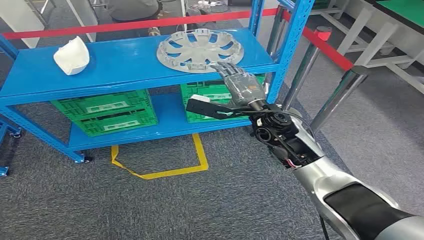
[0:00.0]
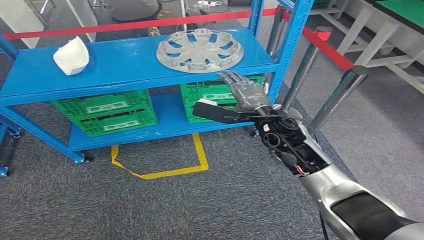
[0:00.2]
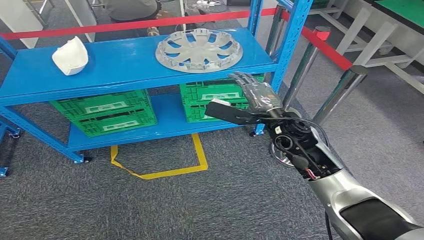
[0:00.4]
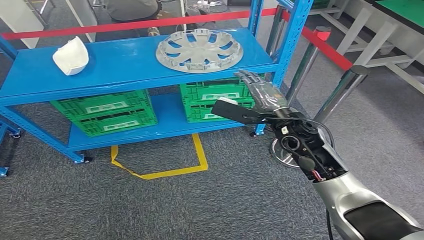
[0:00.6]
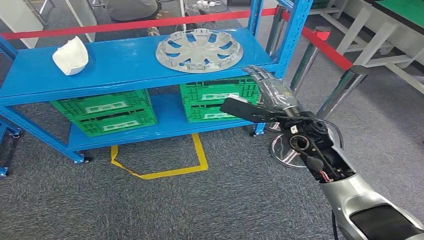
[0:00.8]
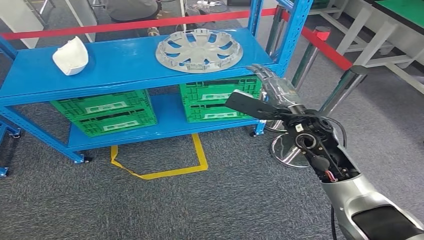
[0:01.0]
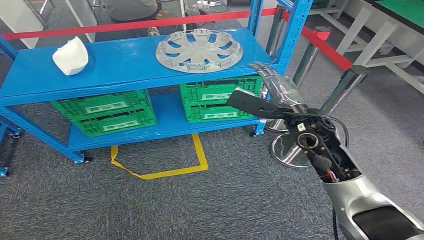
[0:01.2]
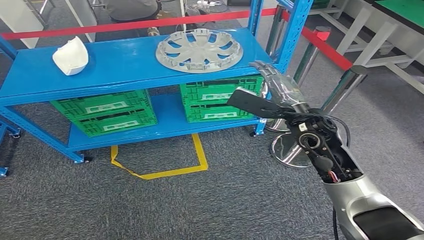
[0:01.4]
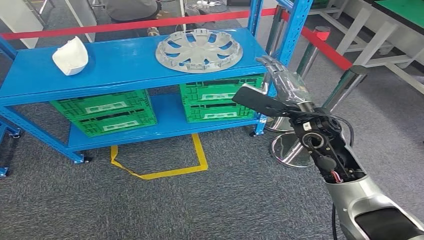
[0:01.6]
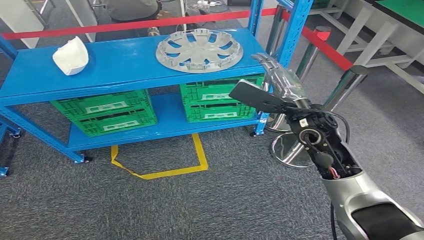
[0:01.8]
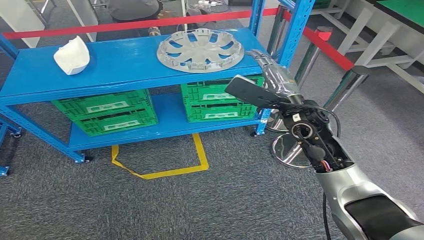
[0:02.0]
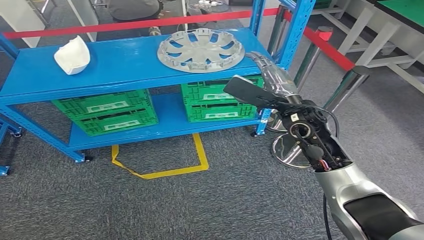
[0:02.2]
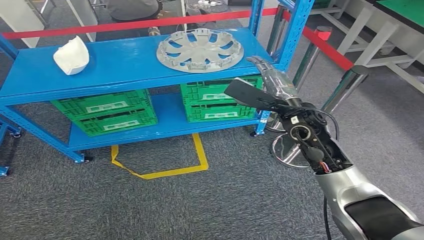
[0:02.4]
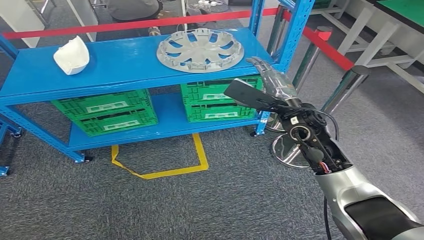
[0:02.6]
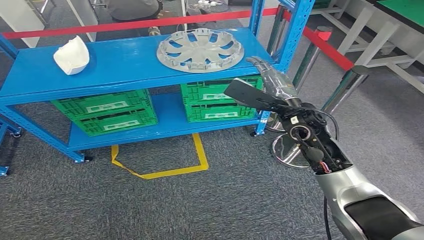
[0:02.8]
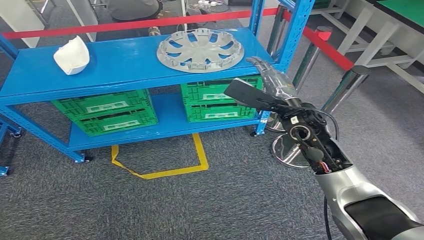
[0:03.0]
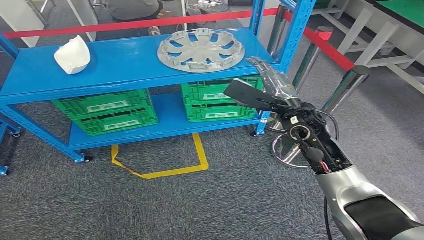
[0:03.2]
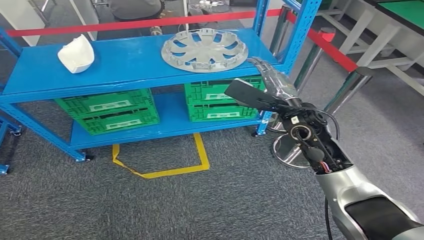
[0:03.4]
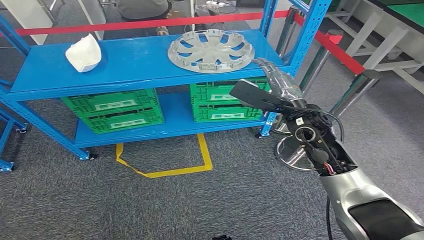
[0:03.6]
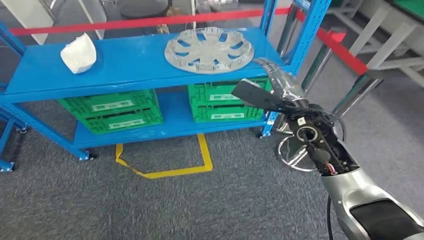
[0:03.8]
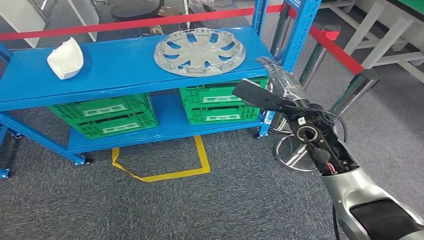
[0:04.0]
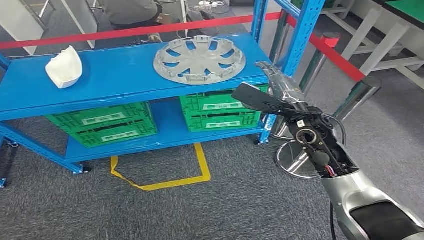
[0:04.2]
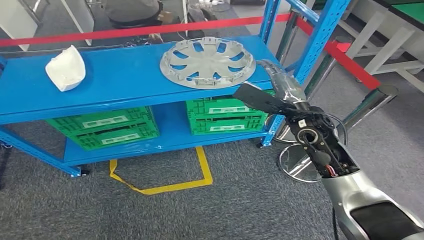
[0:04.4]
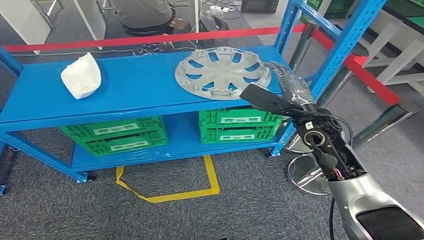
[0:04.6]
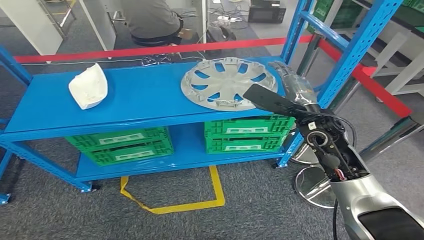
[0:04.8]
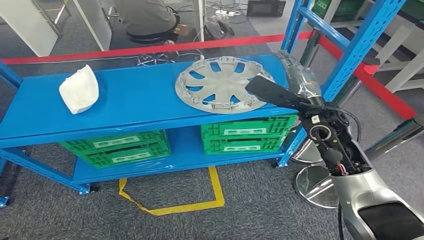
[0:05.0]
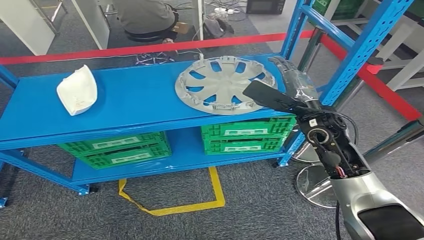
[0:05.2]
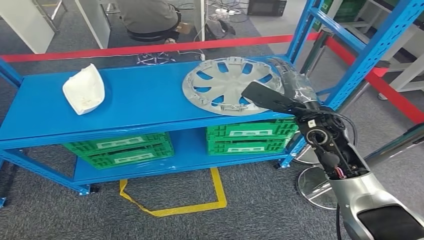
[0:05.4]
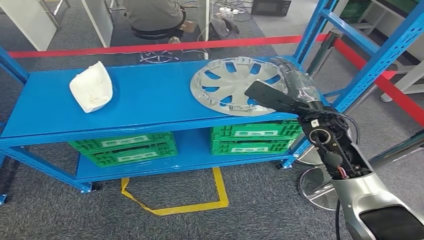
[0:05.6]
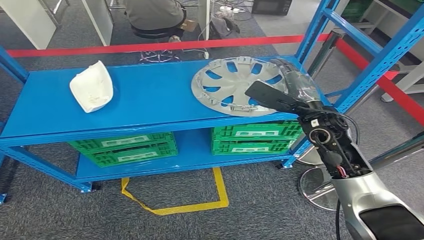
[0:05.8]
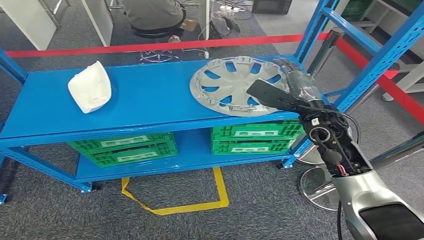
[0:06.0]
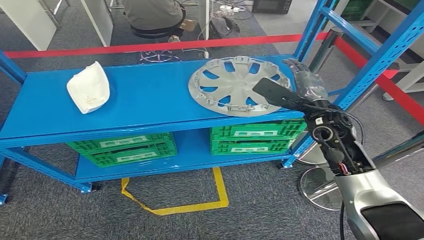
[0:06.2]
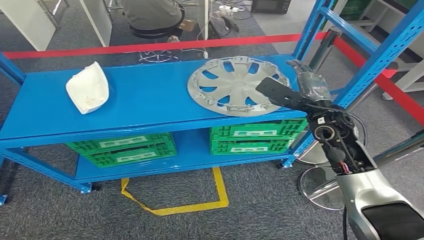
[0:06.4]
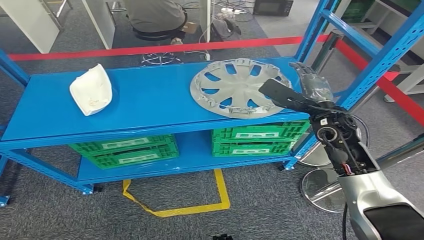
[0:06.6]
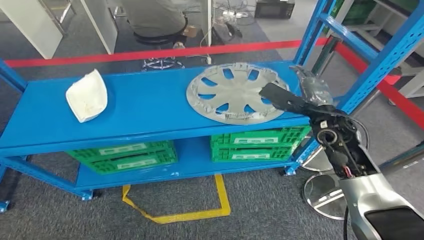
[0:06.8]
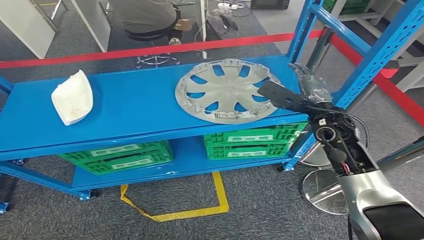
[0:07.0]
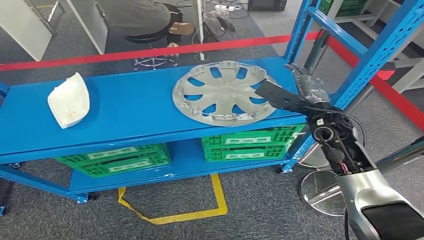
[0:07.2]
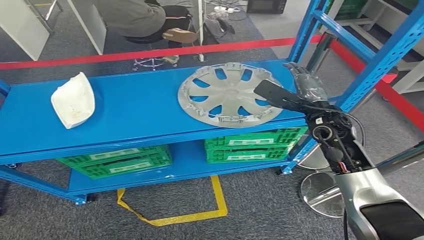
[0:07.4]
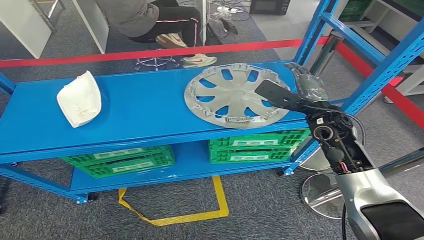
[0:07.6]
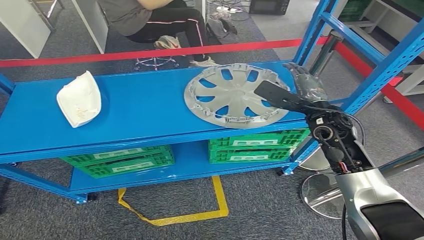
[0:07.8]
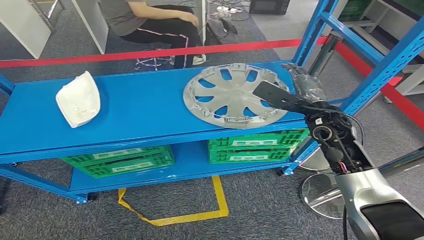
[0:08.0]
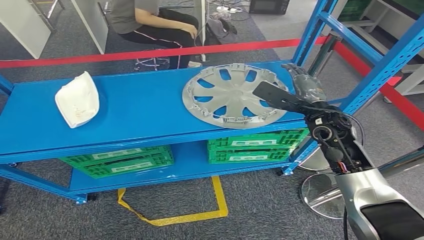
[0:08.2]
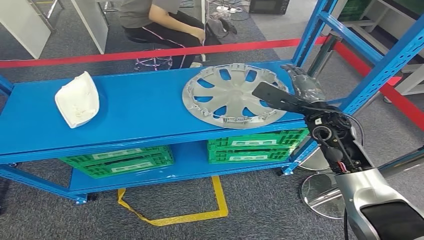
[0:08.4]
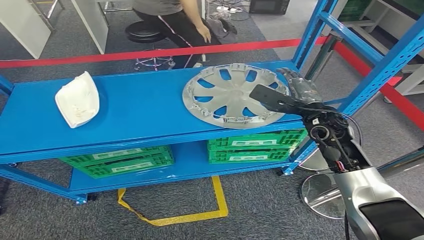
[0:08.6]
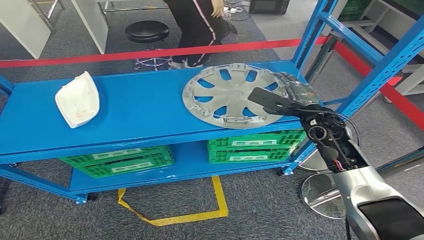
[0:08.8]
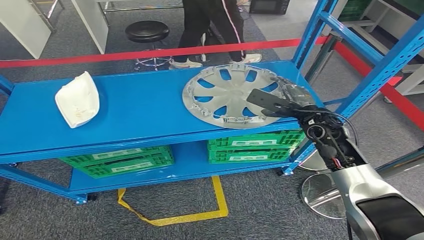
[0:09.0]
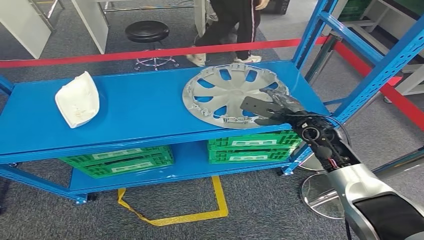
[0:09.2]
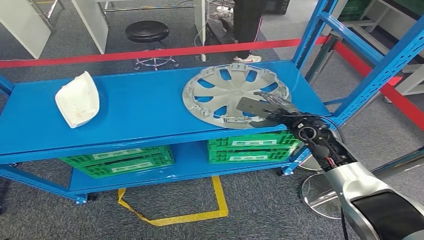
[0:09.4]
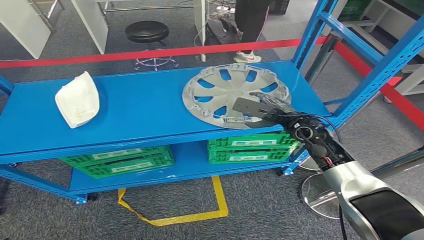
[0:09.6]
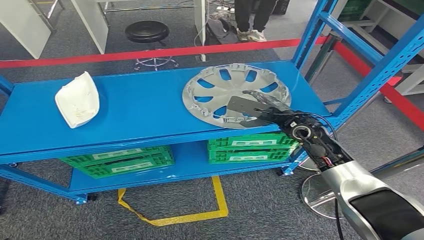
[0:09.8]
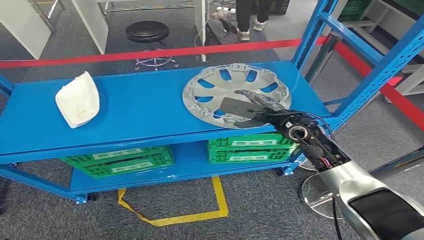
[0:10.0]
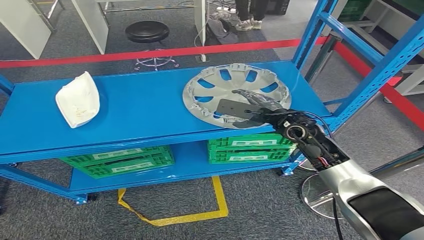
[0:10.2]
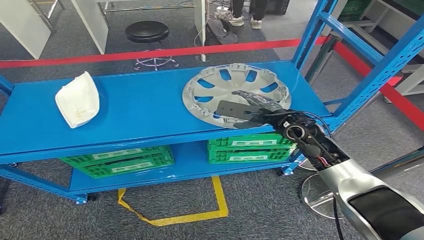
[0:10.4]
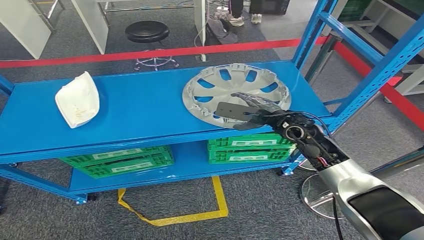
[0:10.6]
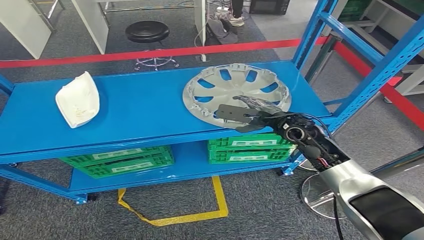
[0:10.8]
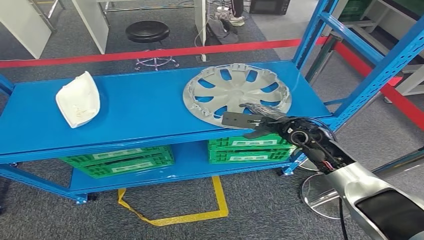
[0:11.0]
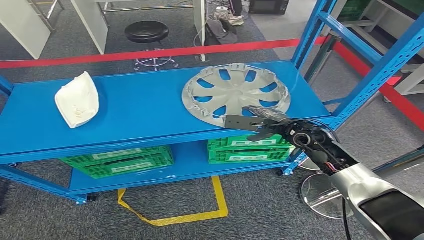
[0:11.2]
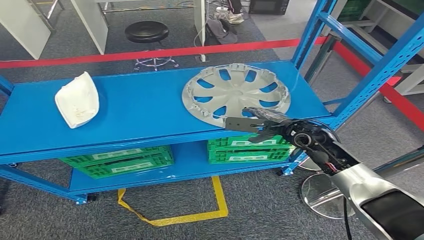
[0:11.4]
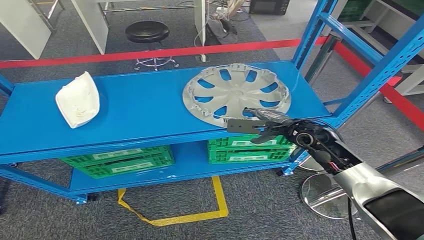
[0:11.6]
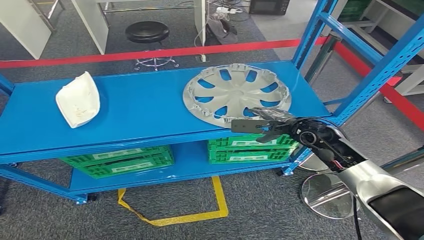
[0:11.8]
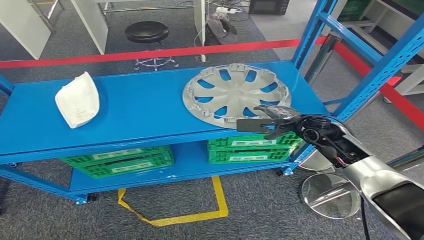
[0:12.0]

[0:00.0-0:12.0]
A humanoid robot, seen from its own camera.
0:01.6 to 0:03.0: The hands move only a little.
0:07.6 to 0:09.0: There are only small adjustments of the hands.
0:09.0 to 0:10.4: The right hand goes about 5 cm to the left.
0:10.4 to 0:12.0: The right hand travels to the right by about 5 cm.

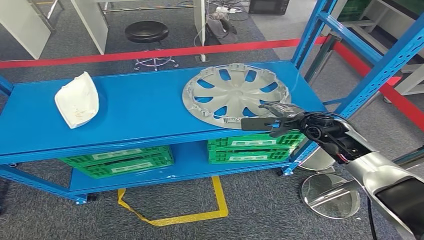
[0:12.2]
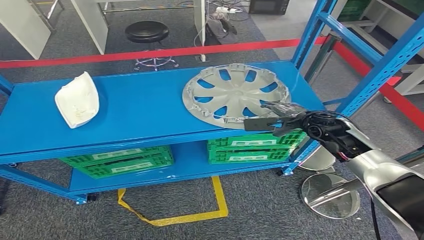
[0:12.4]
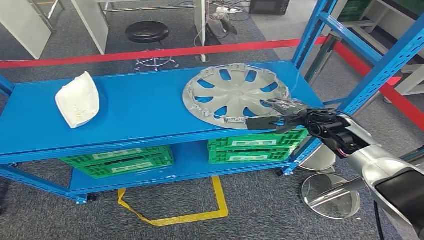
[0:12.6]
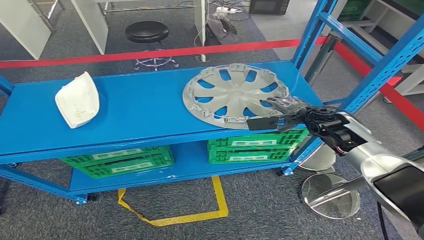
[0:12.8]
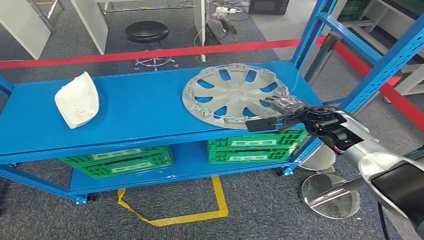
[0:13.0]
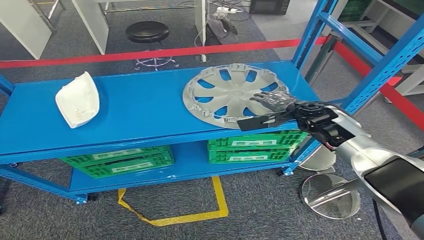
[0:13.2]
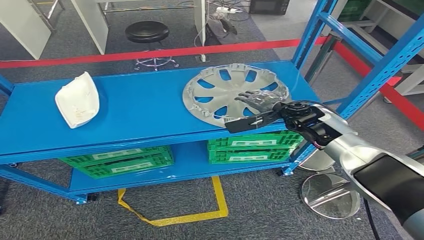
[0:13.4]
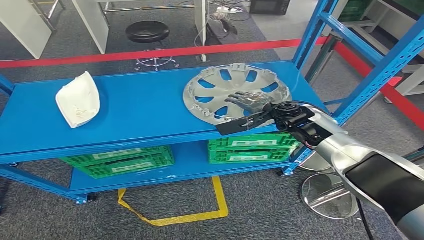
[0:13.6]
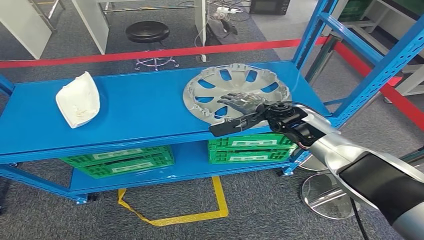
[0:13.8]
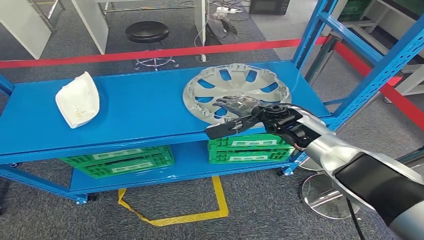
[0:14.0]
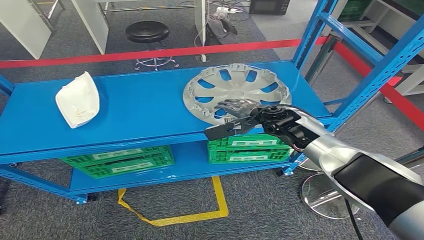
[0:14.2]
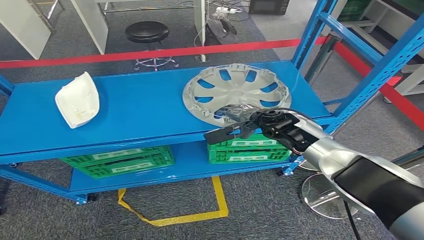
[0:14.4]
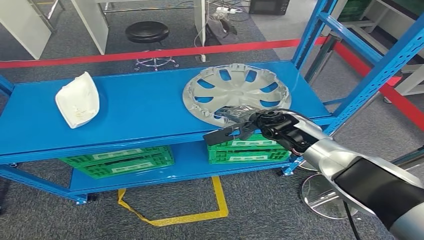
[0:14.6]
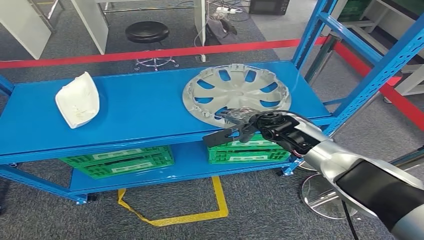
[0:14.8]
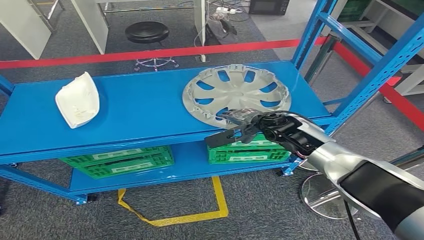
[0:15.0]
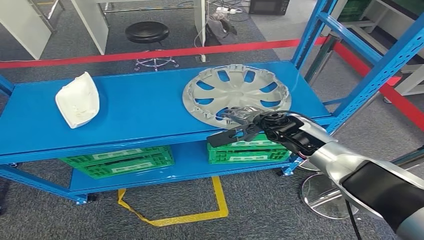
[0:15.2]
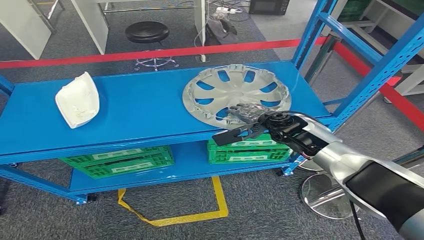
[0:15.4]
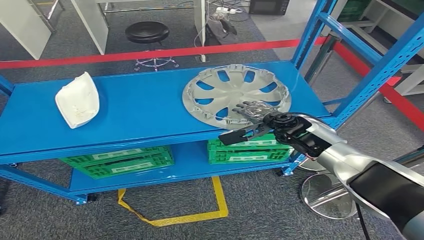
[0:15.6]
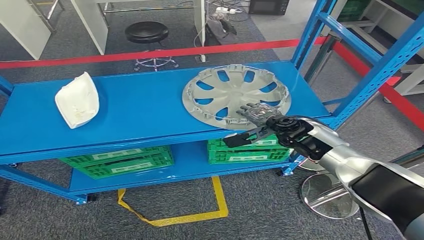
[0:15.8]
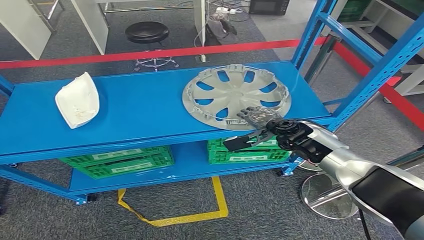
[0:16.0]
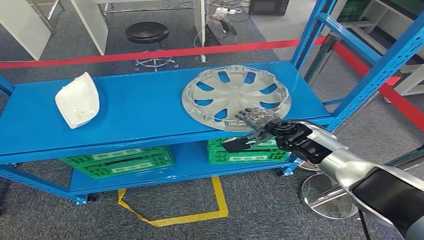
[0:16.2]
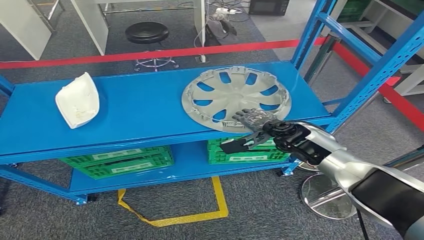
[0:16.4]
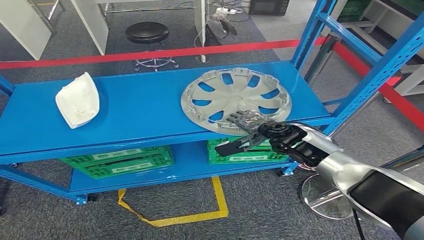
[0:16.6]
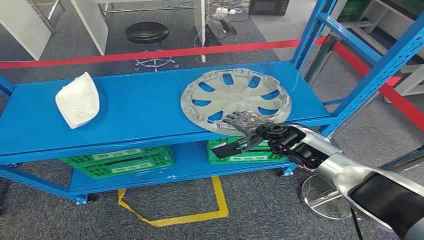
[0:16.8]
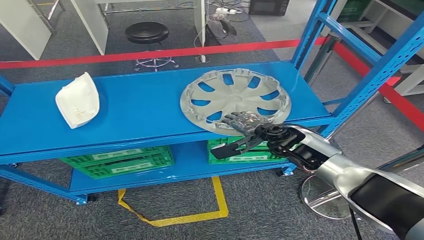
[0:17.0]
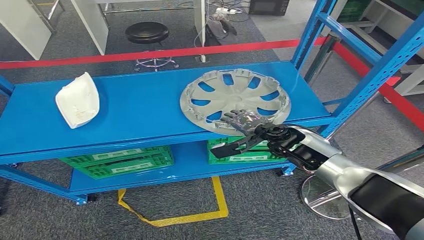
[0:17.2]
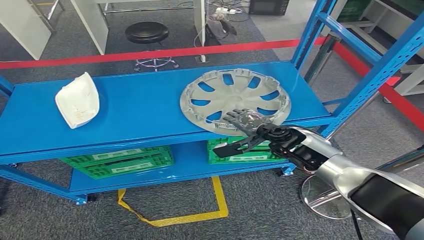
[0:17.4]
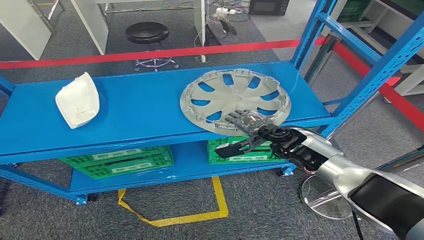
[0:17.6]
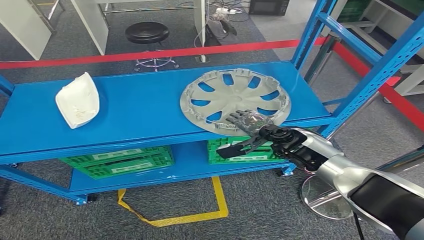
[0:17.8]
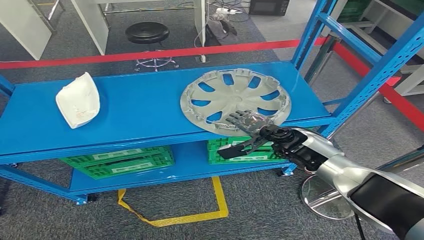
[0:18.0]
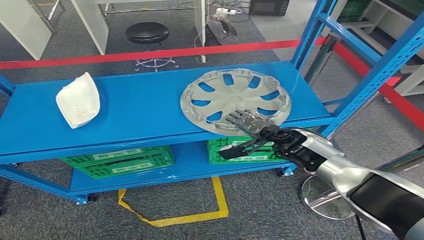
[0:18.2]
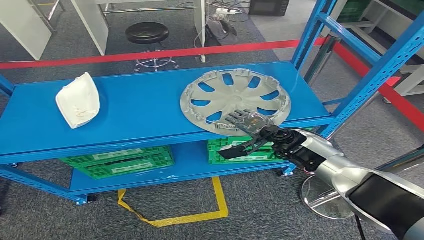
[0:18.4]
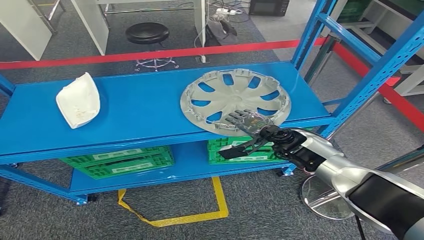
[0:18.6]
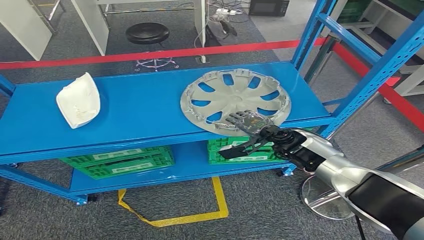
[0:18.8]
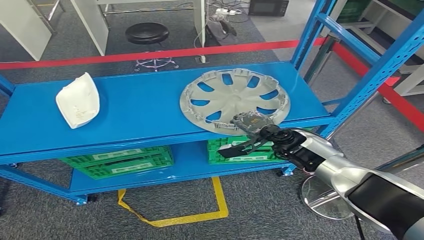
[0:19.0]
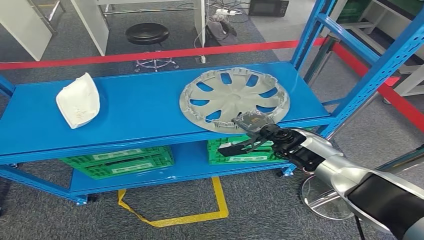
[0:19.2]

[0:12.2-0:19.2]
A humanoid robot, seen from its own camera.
0:12.2 to 0:13.6: The right hand heads forward, covering some 5 cm.
0:13.6 to 0:15.0: The right hand moves approximately 5 cm.
0:15.0 to 0:17.8: The hands make only small movements.
0:17.8 to 0:19.2: Both hands stay about where they are.
